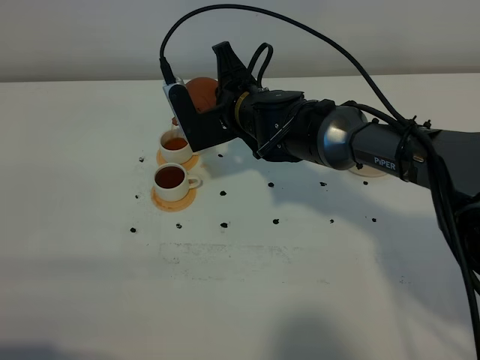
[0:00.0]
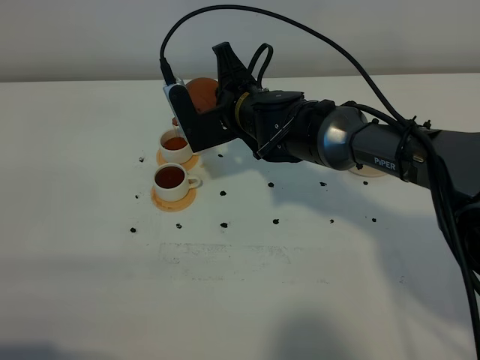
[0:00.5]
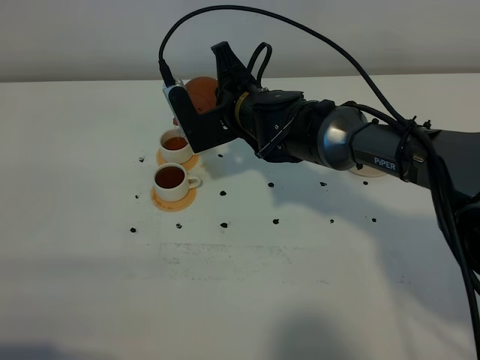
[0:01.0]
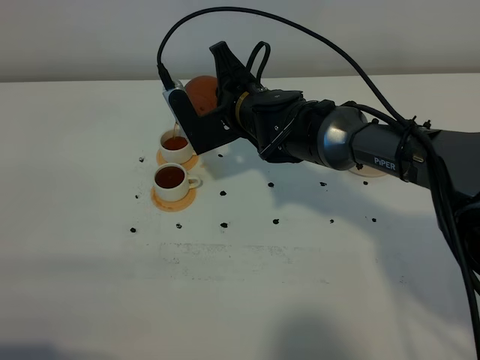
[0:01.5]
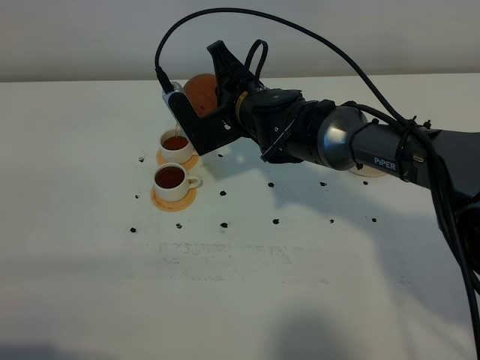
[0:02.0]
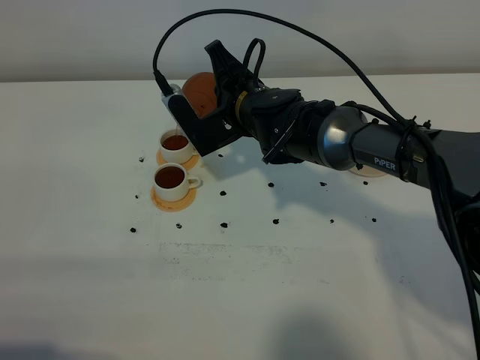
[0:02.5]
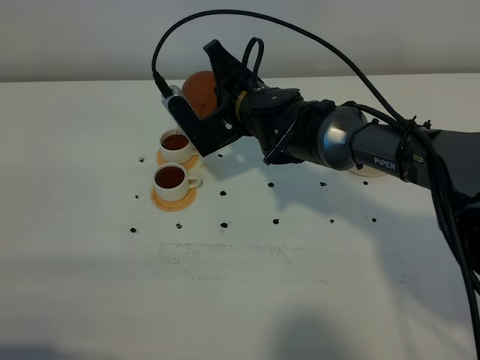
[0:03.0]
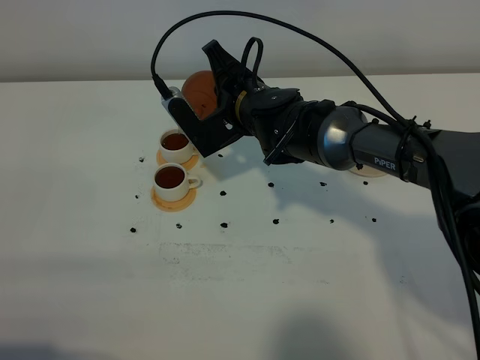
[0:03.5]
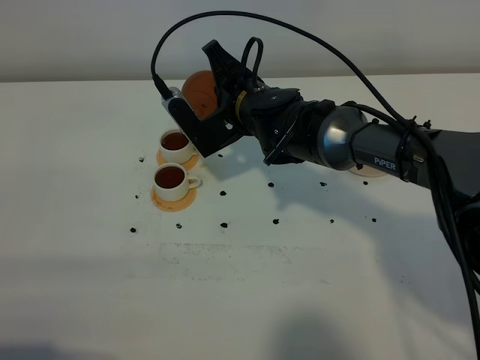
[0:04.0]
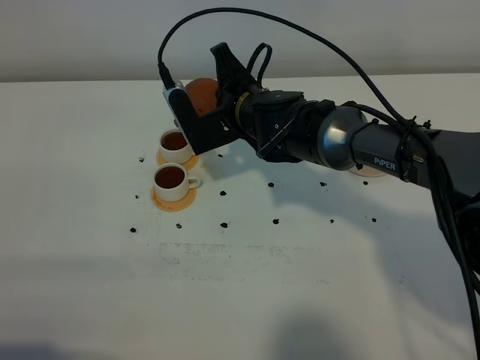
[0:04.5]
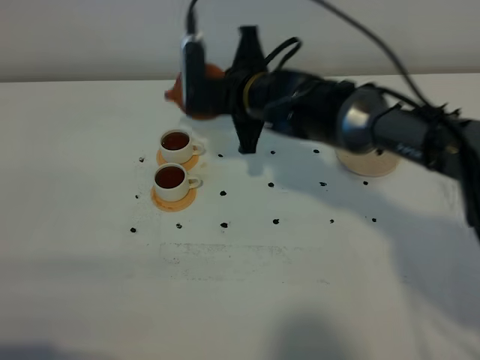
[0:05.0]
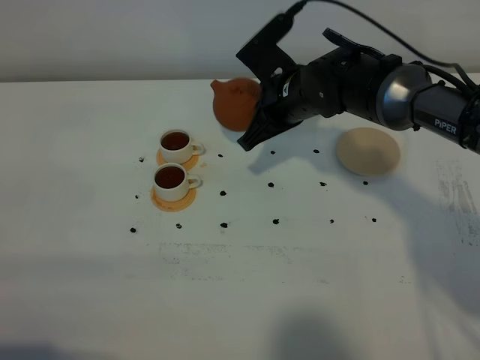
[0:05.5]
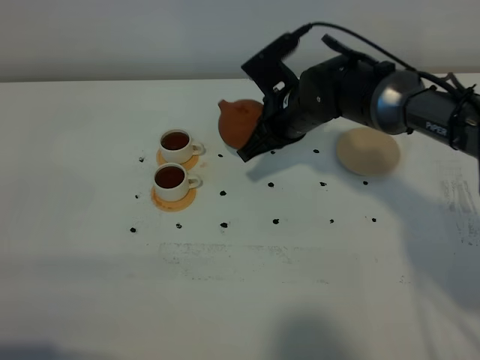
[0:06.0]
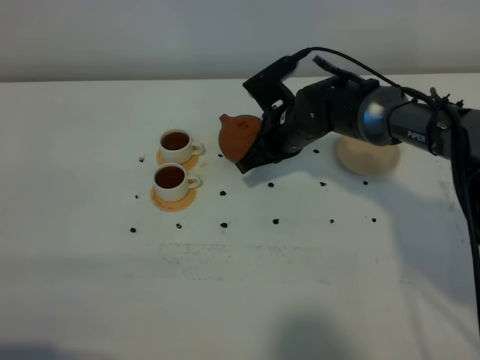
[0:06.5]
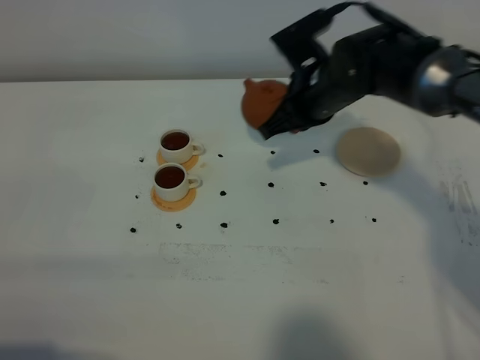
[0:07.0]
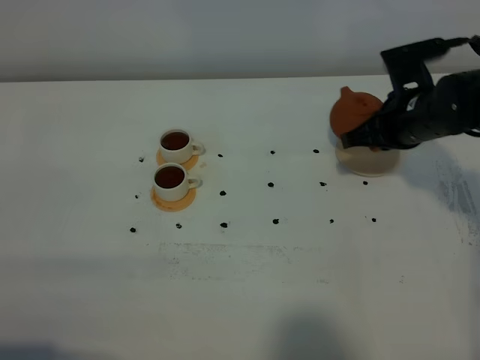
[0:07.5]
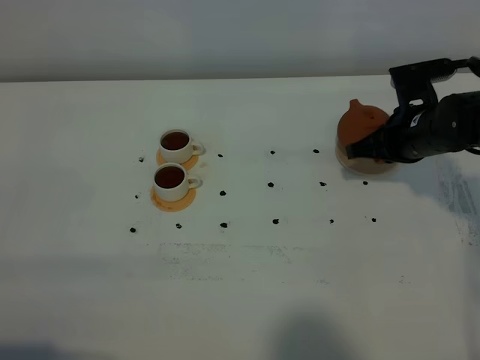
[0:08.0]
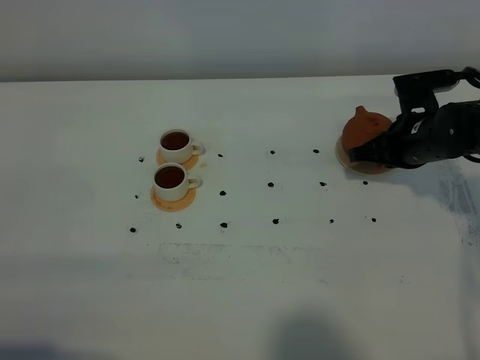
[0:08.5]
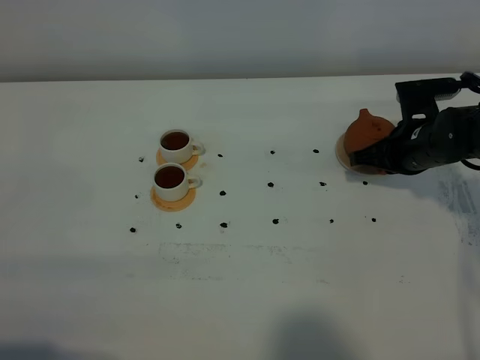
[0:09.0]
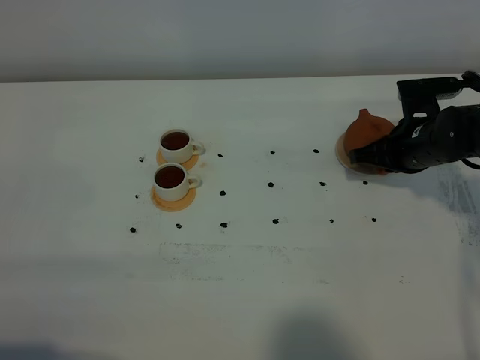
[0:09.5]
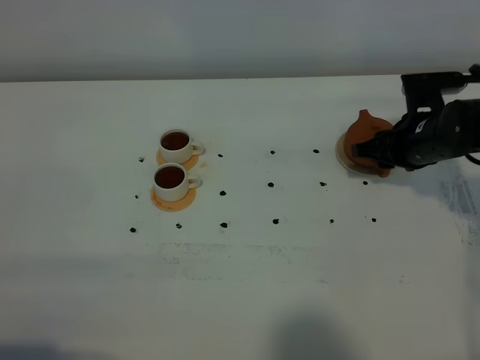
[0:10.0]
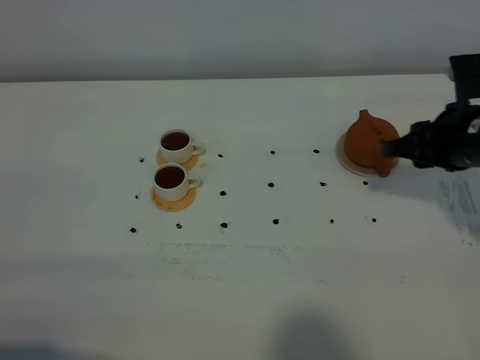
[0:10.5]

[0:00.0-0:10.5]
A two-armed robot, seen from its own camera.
Task of the whole recording: grasp the brown teapot and pour the tea into the two white teacups one by one, put the brown teapot back in its original place.
Step, 0:00.0 to 0:04.5: Pour tea into the teacup with the right gripper.
0:00.0 to 0:04.0: The grippers move only a little.
0:04.0 to 0:06.5: The right gripper shifts roughly 5 cm to the right.
0:06.5 to 0:08.5: The right gripper moves to the right, roughly 15 cm.
0:08.5 to 0:10.5: The right gripper moves upward and backward, approximately 10 cm, and opens.

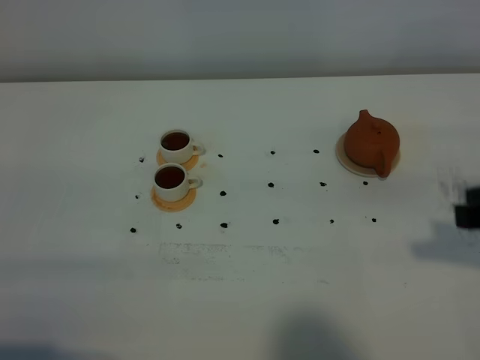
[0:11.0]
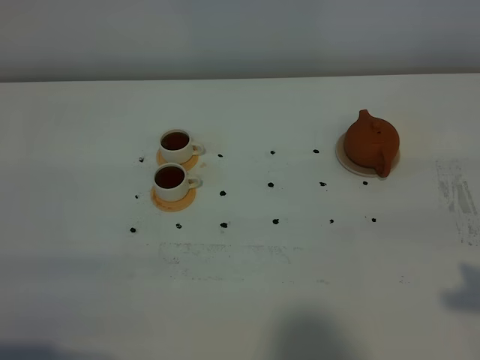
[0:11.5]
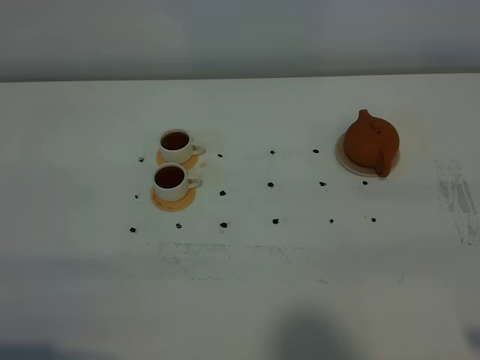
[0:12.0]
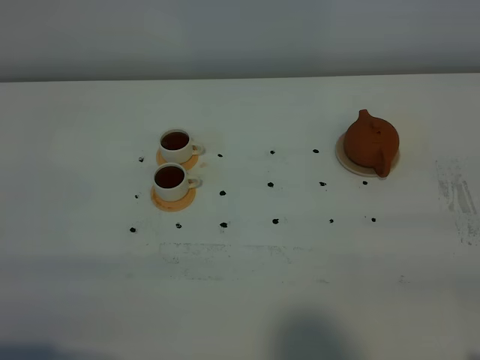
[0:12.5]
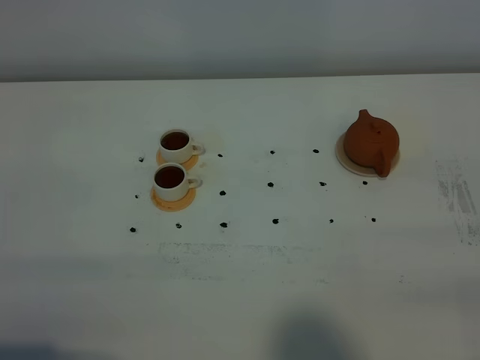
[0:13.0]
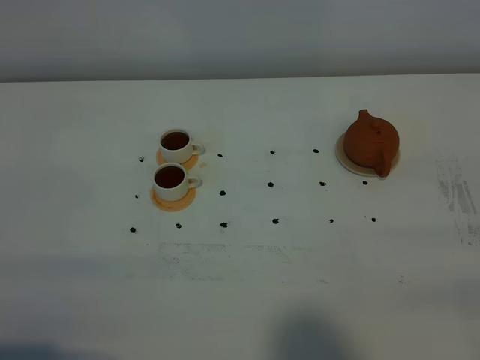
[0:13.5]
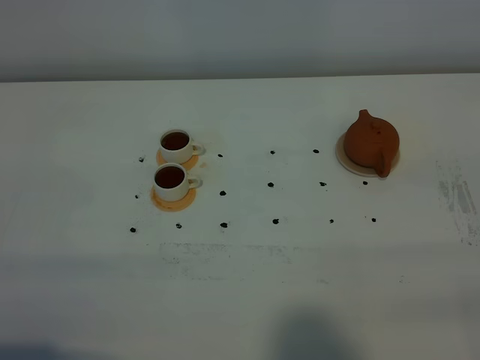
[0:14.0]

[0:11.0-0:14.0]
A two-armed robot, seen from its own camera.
Task of the whole recording: grasp the brown teapot and pour the tea into the two white teacups one by one, put the brown teapot back in its original place.
0:11.0 to 0:12.5: The right gripper shifts roughly 15 cm backward.

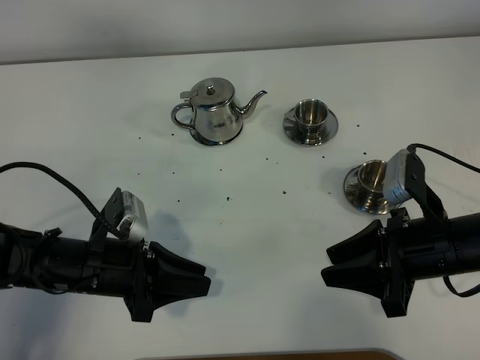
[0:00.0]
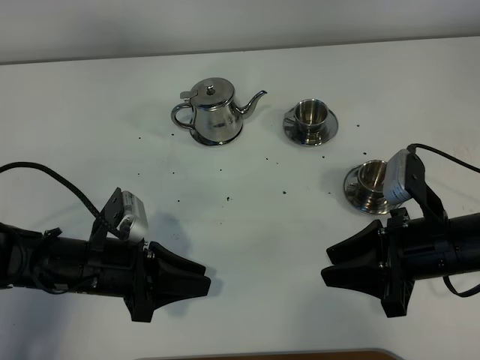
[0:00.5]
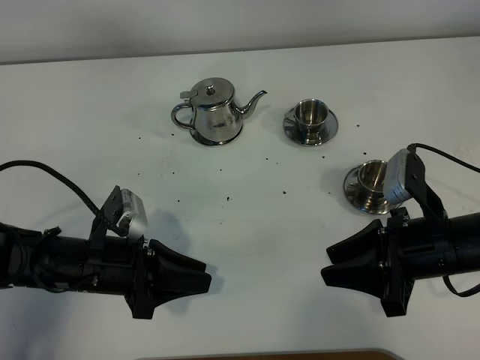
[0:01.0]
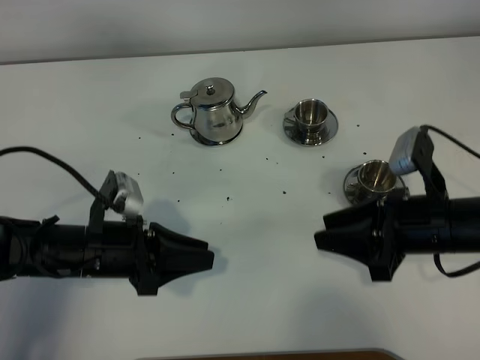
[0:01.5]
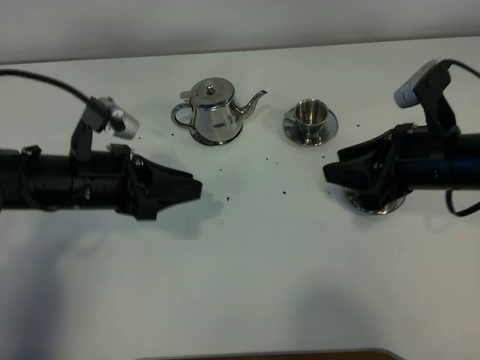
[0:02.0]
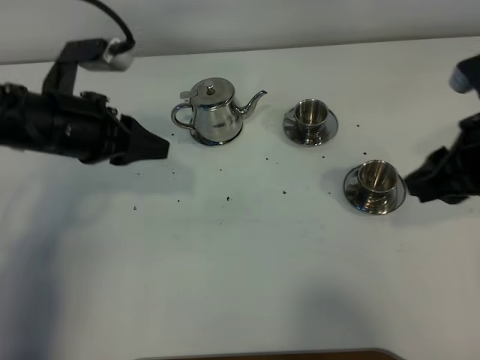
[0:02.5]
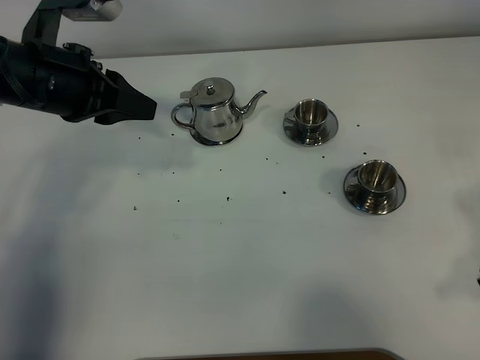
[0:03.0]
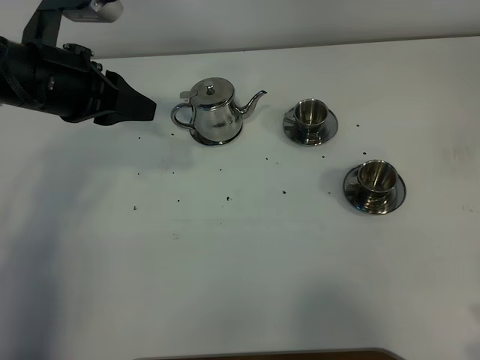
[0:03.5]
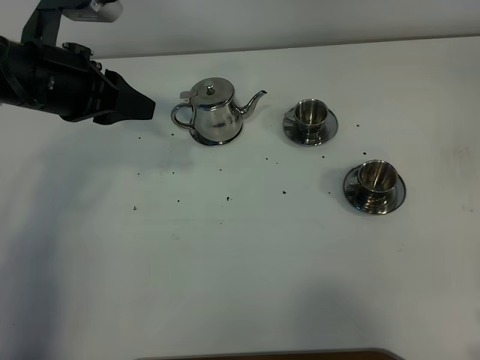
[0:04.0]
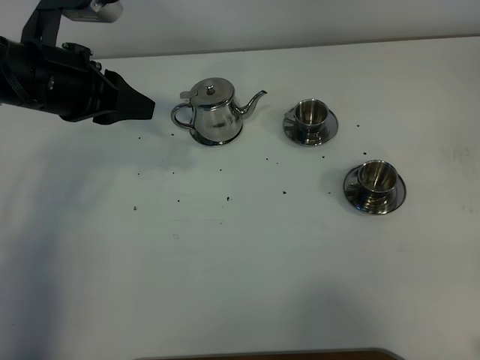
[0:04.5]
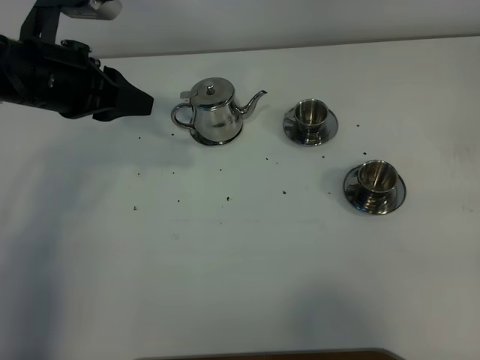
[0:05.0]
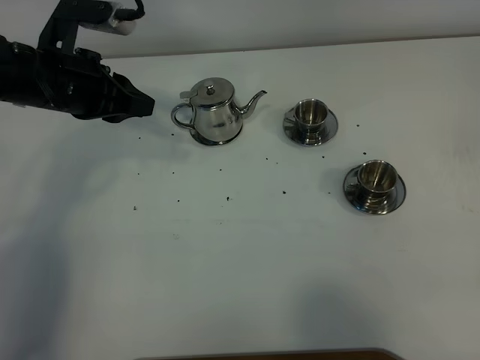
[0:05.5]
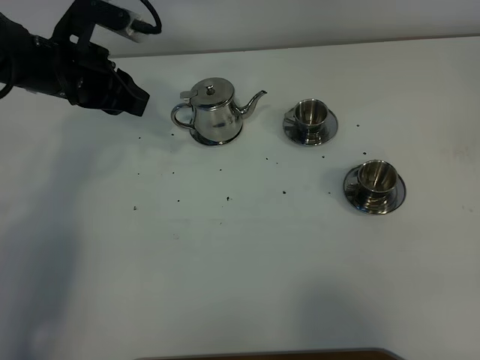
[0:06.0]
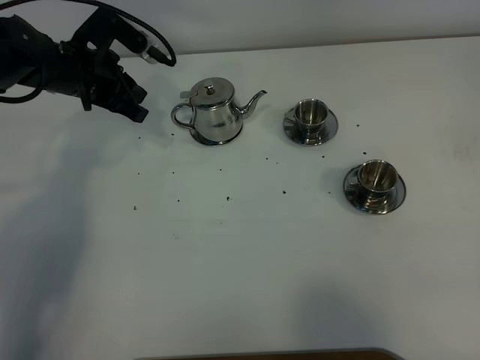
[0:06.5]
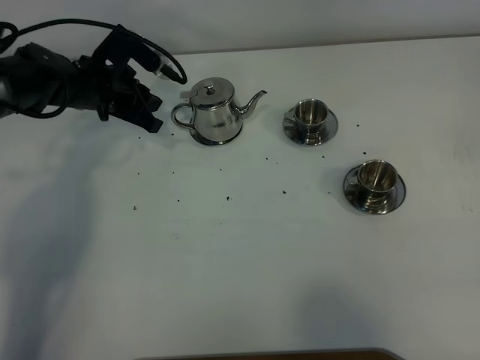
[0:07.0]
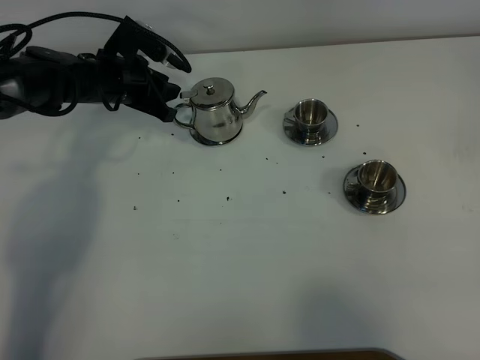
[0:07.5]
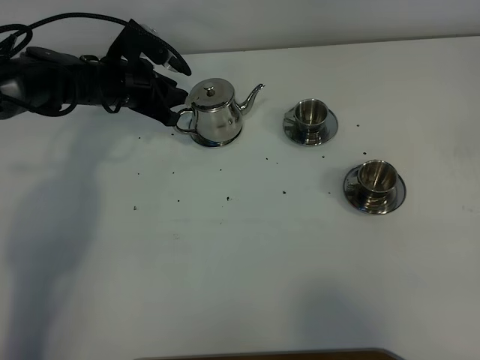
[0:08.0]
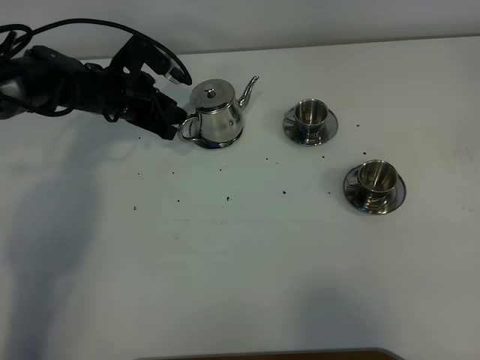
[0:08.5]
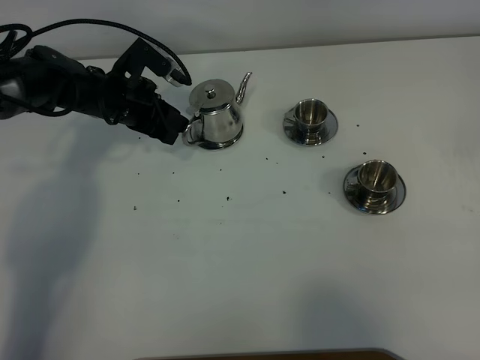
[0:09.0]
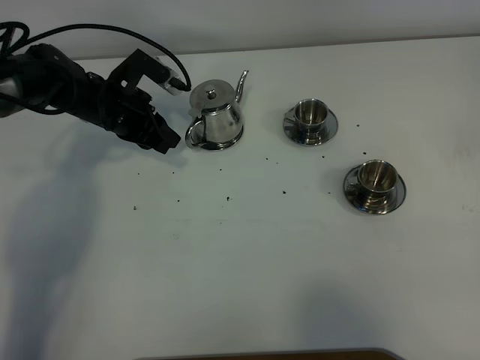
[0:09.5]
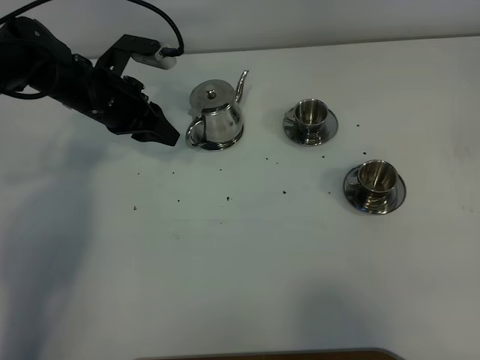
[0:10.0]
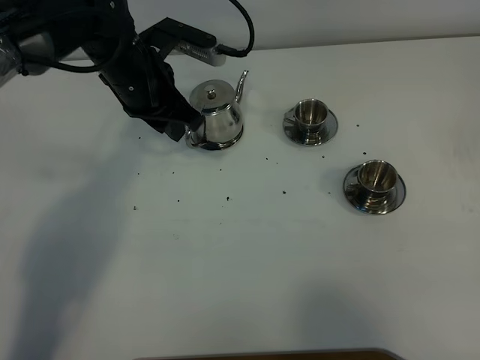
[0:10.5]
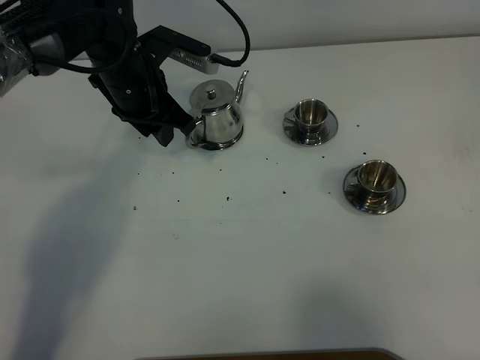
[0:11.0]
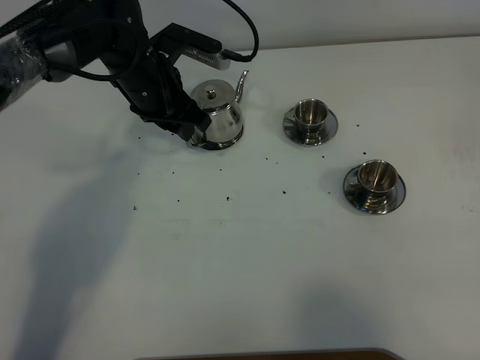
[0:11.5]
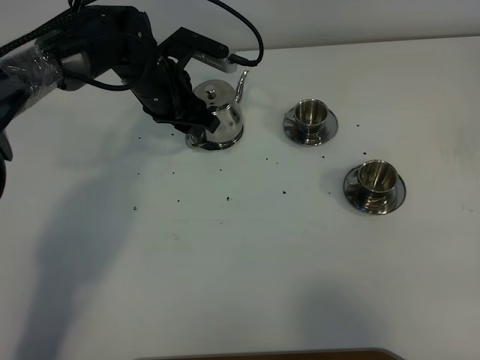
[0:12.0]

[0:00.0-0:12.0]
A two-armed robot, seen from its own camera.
Task of the whole recording: grasp the stainless steel teapot and pour the tea into the two stainless steel teacups one by one, put the stainless steel teapot back in its original place.
0:00.0 to 0:02.0: The right gripper goes about 10 cm forward and upward; the left gripper travels upward and forward by roughly 10 cm.
0:02.0 to 0:04.0: The left gripper travels upward and forward by approximately 10 cm. Meanwhile the right gripper shifts roughly 25 cm backward and to the right.
0:04.0 to 0:06.0: The left gripper is displaced forward and downward by approximately 10 cm.
0:06.0 to 0:08.0: The left gripper shifts some 10 cm downward and forward.
0:08.0 to 0:10.0: The left gripper shifts by roughly 5 cm.
0:10.0 to 0:12.0: The left gripper goes about 5 cm to the right, and opens up.
